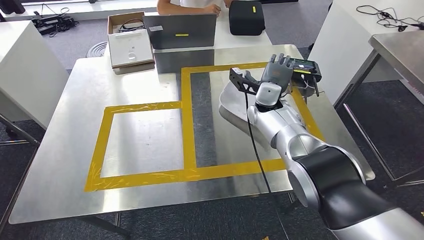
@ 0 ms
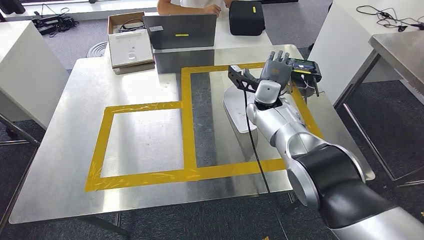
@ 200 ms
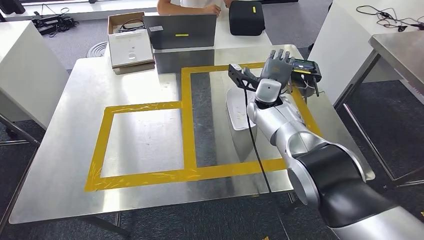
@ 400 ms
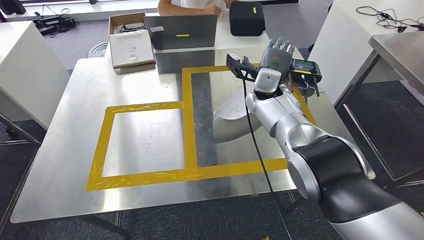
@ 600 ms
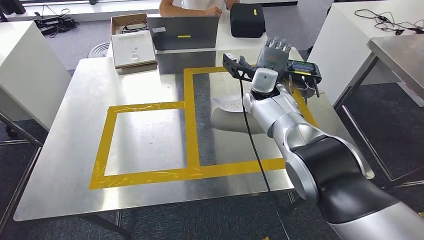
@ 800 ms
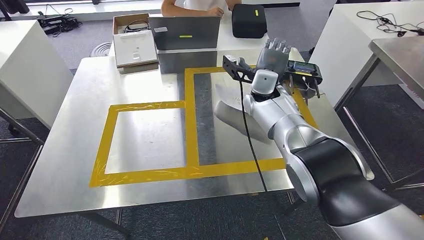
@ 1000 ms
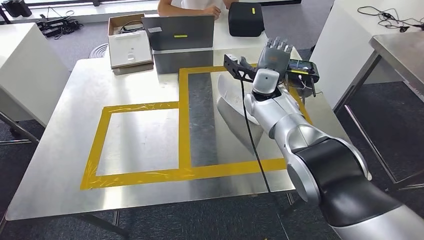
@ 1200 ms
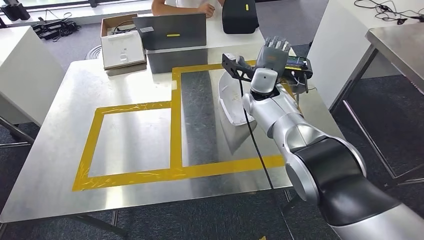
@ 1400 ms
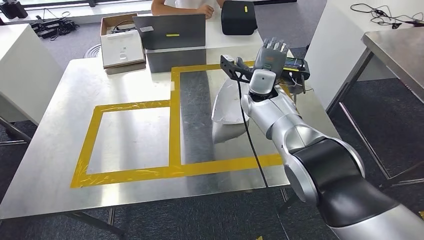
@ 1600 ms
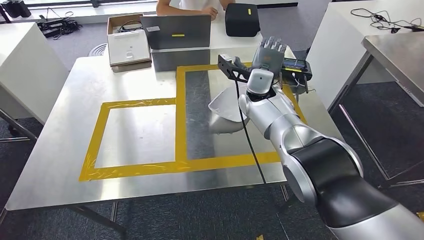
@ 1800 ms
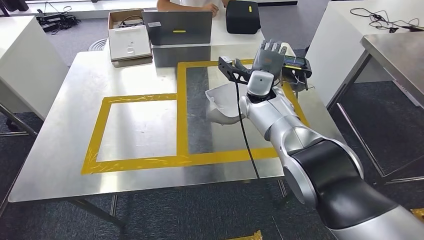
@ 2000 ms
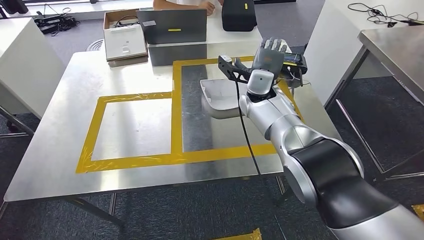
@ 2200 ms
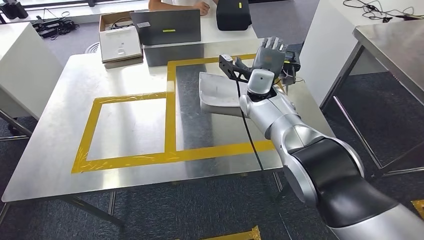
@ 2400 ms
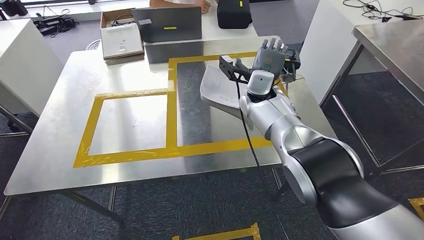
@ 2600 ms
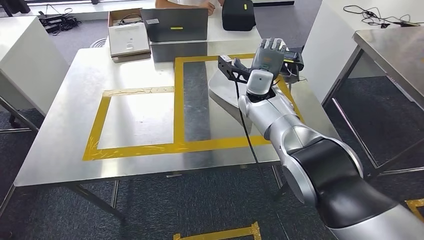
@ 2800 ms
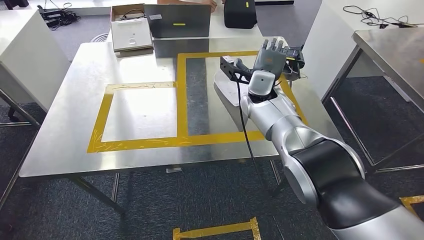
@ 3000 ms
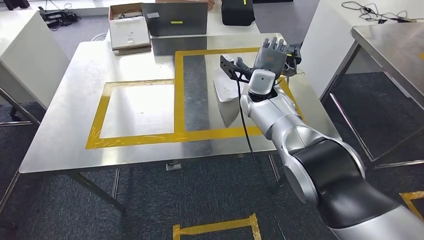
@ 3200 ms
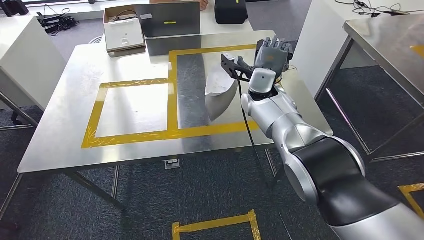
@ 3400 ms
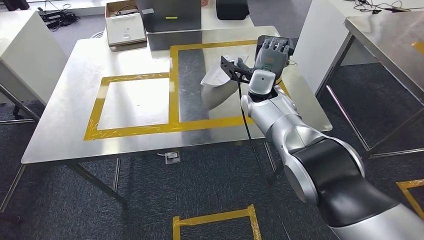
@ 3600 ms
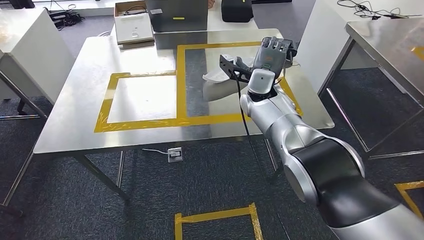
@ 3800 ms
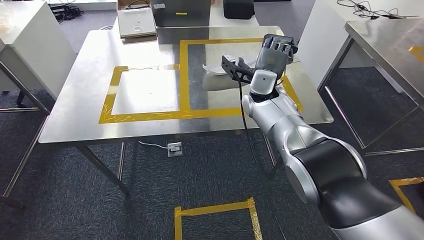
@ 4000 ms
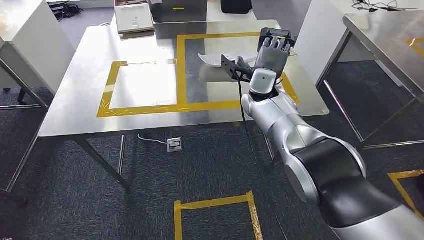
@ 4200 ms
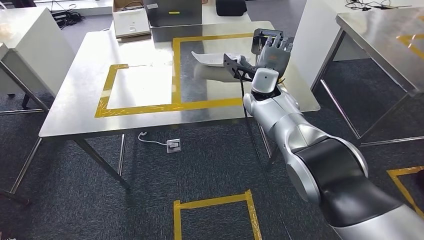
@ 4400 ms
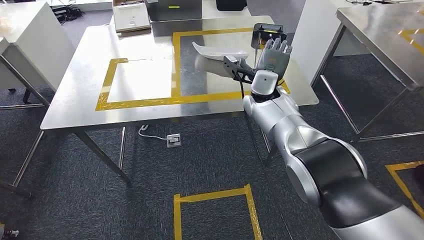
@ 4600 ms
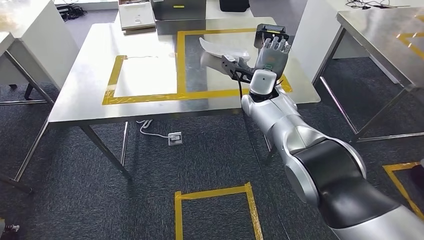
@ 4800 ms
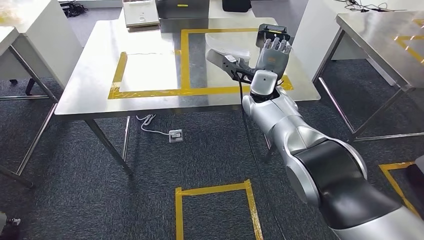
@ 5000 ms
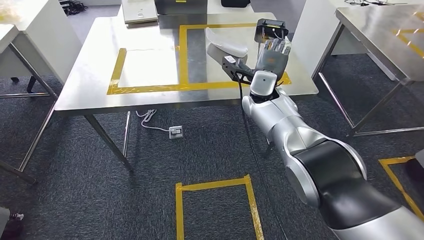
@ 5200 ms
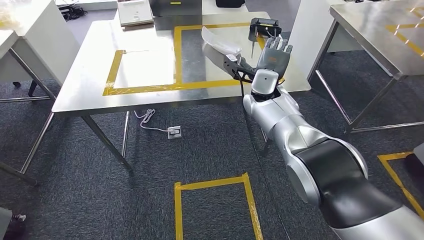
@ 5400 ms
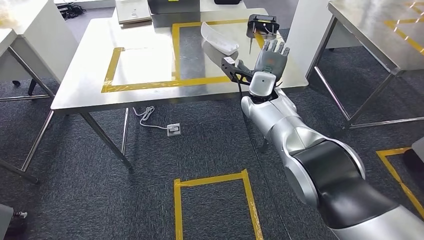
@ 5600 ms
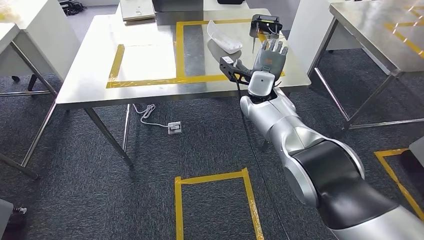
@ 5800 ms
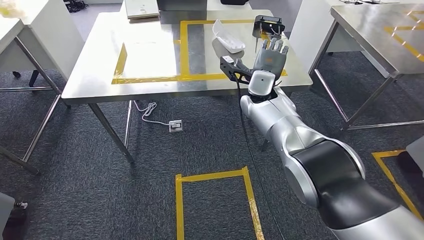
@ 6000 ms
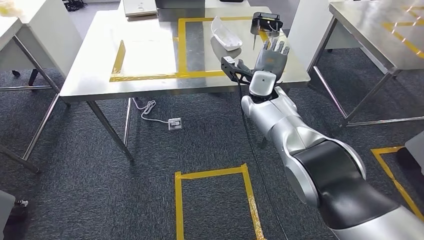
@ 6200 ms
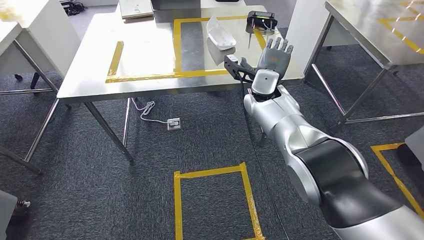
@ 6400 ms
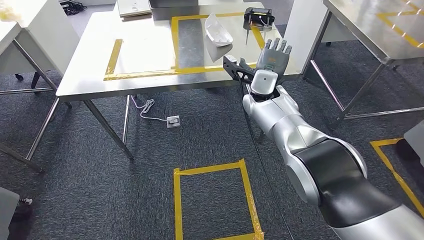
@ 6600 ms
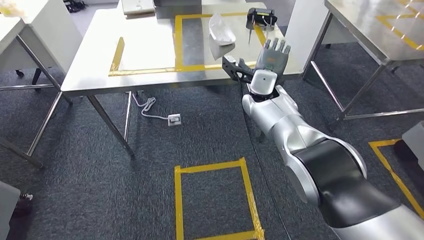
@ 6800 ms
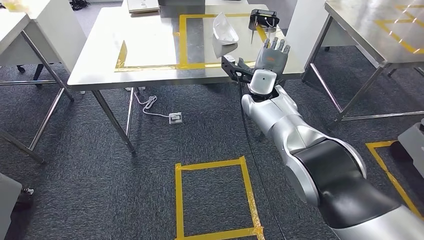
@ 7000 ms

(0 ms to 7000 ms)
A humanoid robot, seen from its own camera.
Step, 0 ms - 2200 ms: Insert the small component into the corresponding slot on the workbench.
Step, 2600 ms - 7000 ms: Move to the initial position of the workbench.
